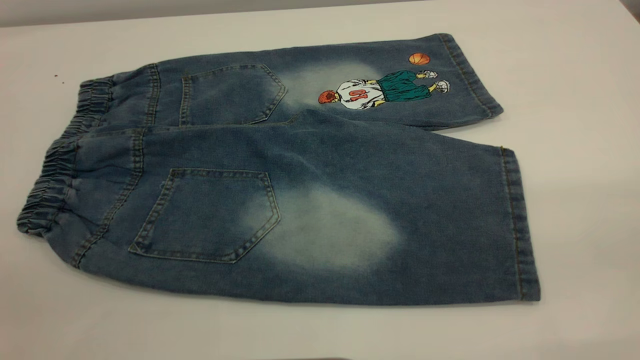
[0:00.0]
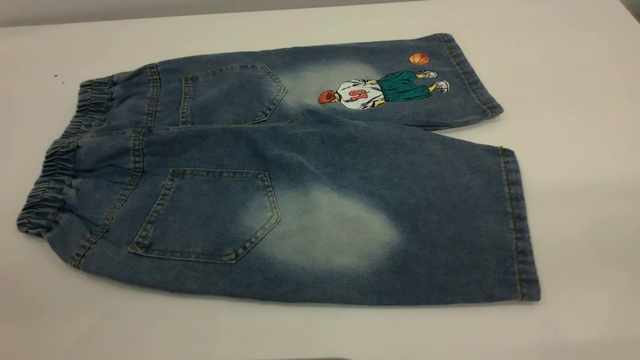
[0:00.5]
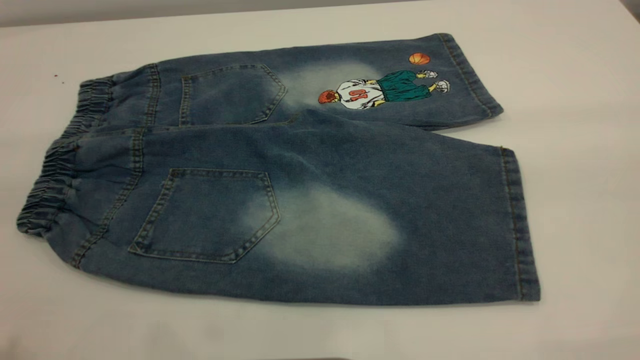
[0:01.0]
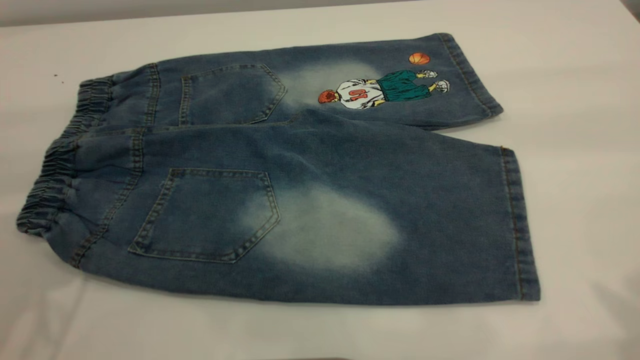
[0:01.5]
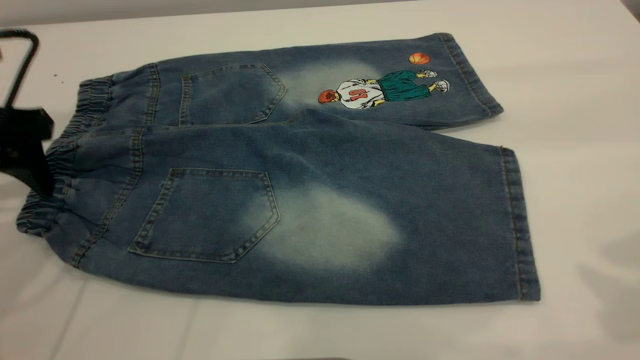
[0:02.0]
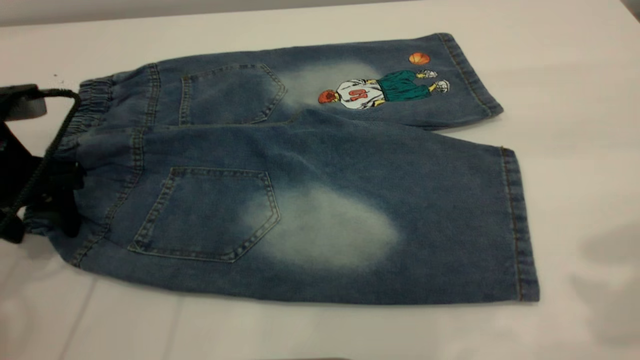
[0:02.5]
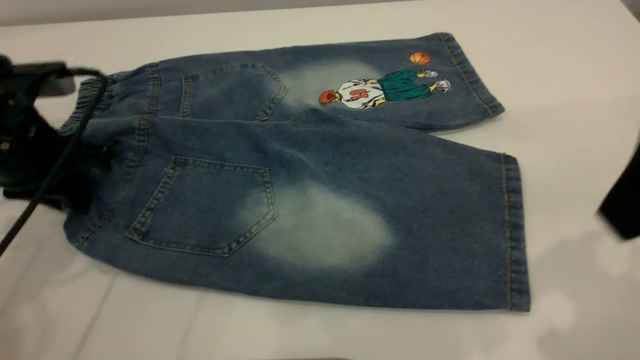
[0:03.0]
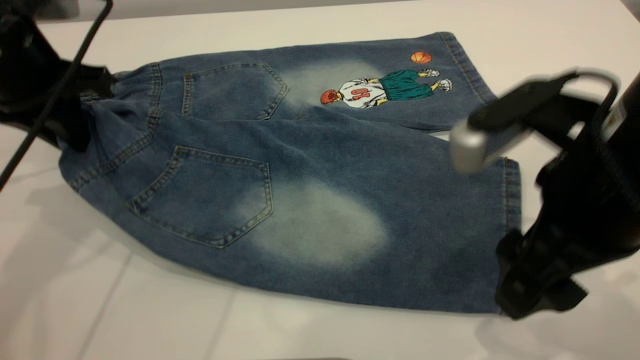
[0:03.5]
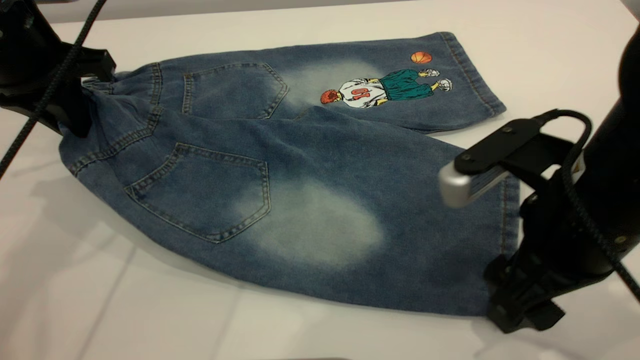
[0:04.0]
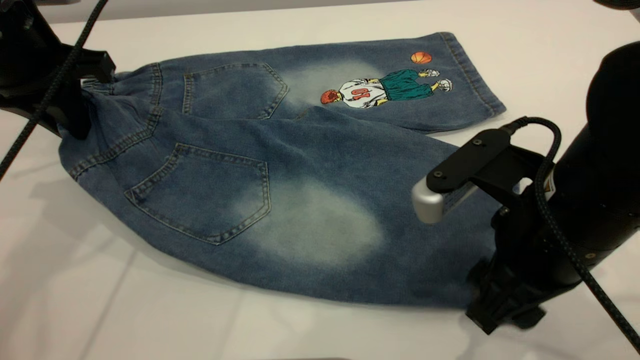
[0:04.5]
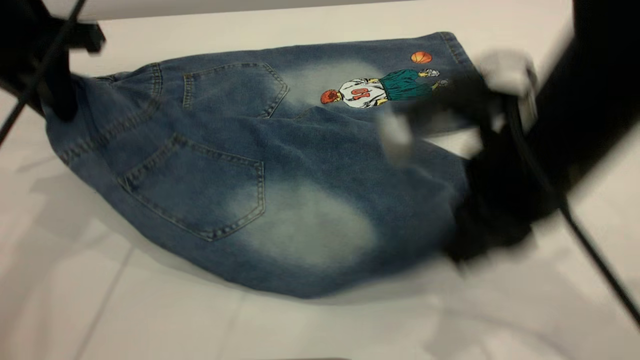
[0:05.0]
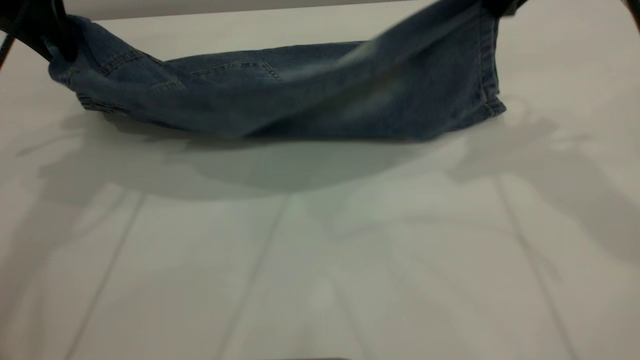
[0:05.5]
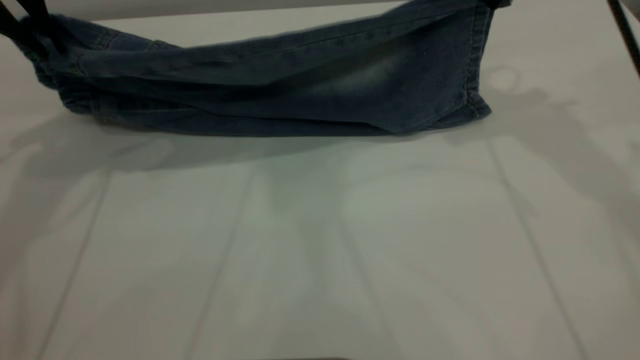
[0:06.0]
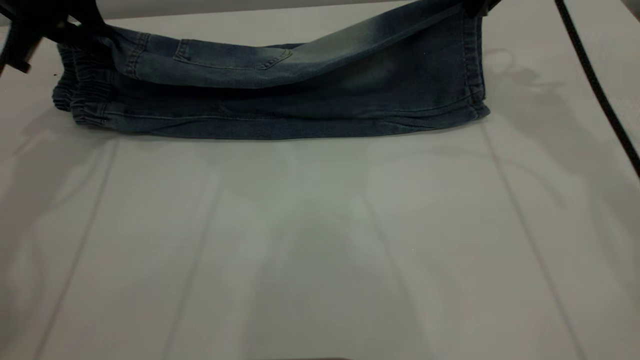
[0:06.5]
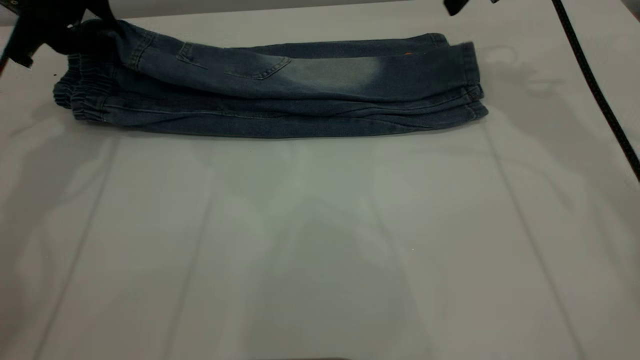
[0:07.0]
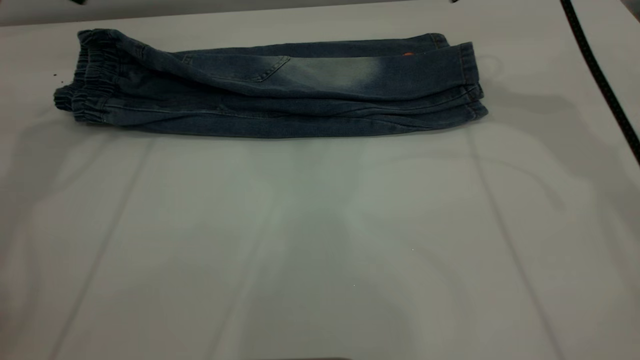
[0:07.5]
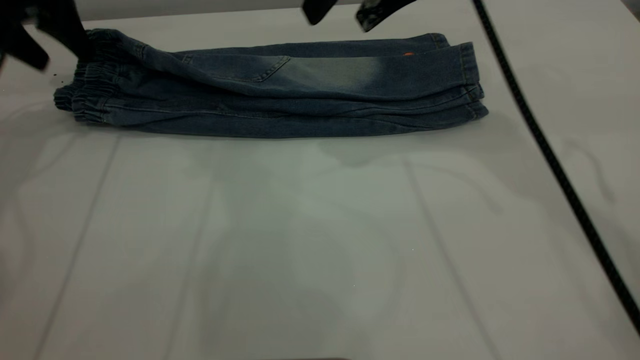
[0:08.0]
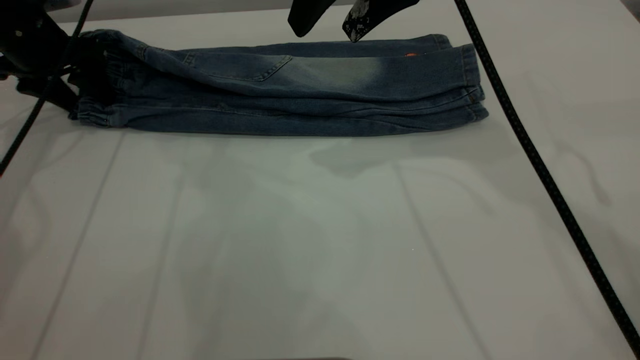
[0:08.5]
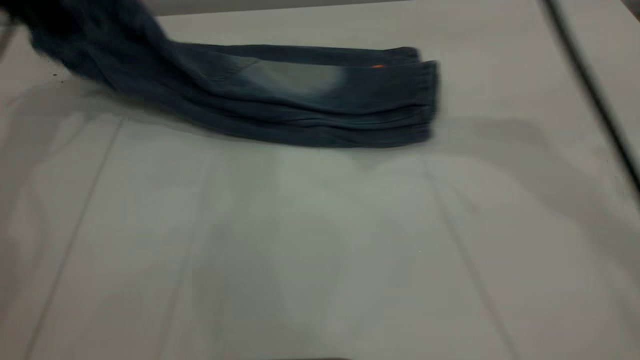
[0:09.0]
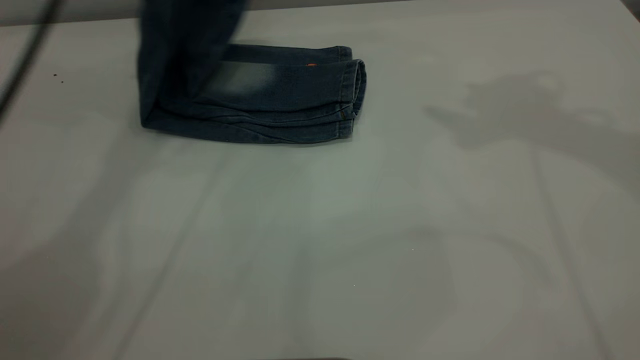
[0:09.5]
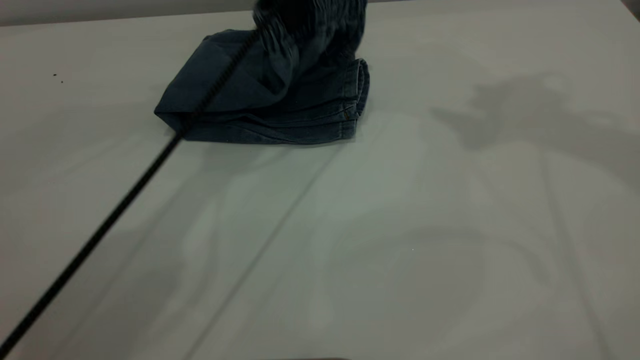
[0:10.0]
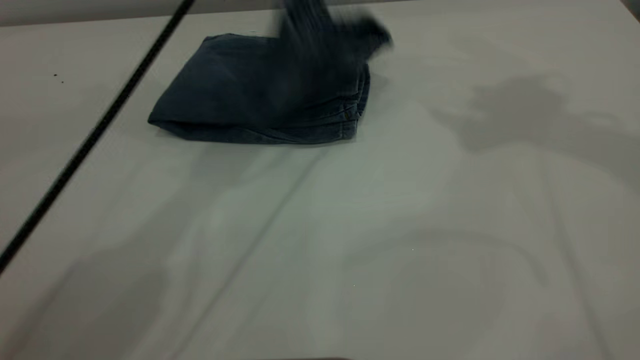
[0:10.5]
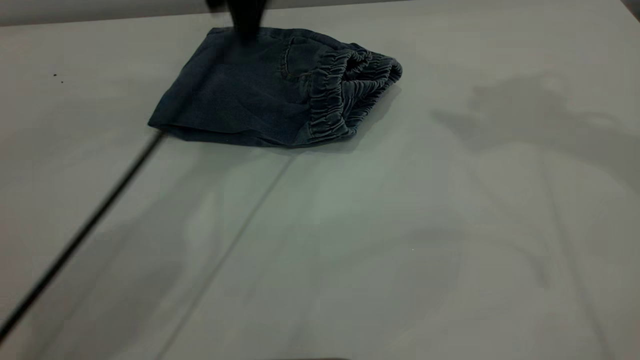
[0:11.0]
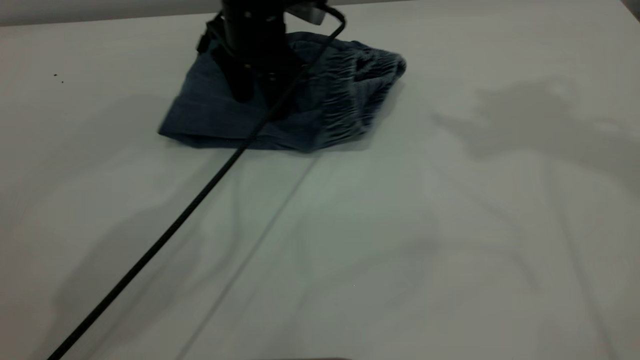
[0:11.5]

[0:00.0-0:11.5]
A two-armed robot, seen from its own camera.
Step, 0:00.0 to 0:07.0: Fold the bottom of the pants upward.
Step, 0:07.5 to 0:10.5: Fold the pants from left to right.
0:00.0 to 0:02.0: The left gripper shifts roughly 35 cm forward and downward.
0:02.0 to 0:04.0: The left gripper shifts about 5 cm forward, and closes. The right gripper travels downward and to the left by roughly 25 cm.
0:04.0 to 0:06.0: The right gripper heads forward and upward, covering roughly 25 cm, and closes its fingers, while the left gripper is displaced upward by about 5 cm.
0:06.0 to 0:07.5: The left gripper is displaced forward by about 5 cm, goes downward and returns, approximately 5 cm each way, and opens. The right gripper opens.
0:07.5 to 0:09.5: The left gripper goes some 15 cm to the right, goes downward and returns, some 15 cm each way, and closes its fingers, while the right gripper goes about 20 cm upward.
0:09.5 to 0:11.5: The left gripper moves up and down over some 20 cm, changing direction 2 times, and opens its fingers.

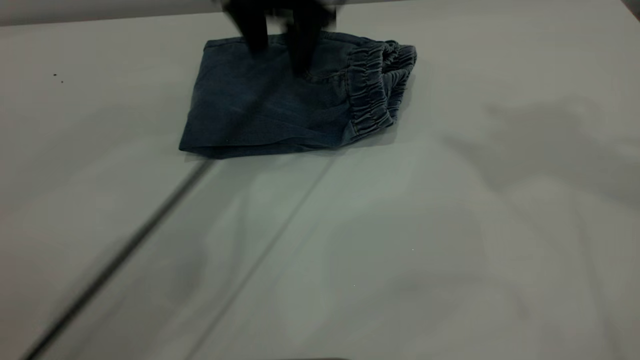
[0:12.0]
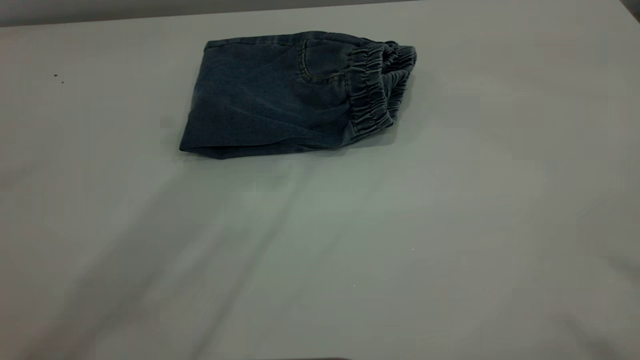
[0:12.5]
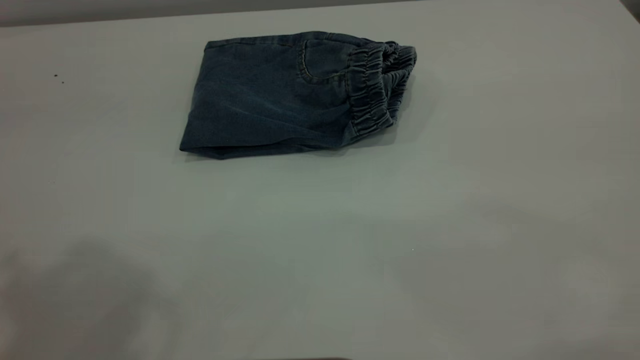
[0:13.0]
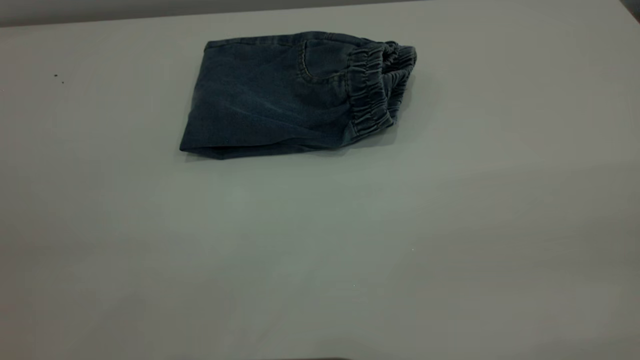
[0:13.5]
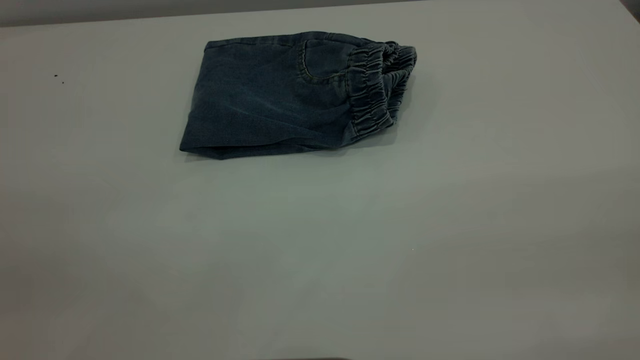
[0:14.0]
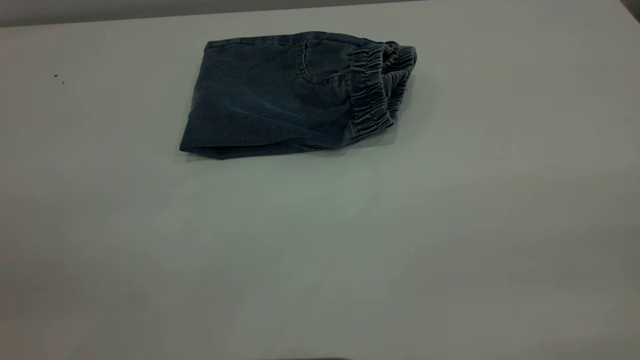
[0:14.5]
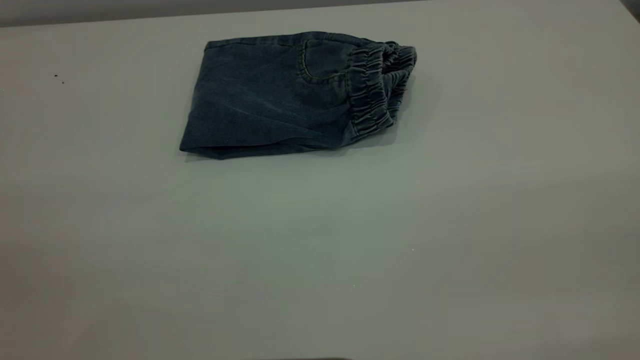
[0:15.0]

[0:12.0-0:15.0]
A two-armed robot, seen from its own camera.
0:12.0 to 0:13.5: The right gripper is displaced backward and downward by about 35 cm. The left gripper moves backward and to the left, about 50 cm.
